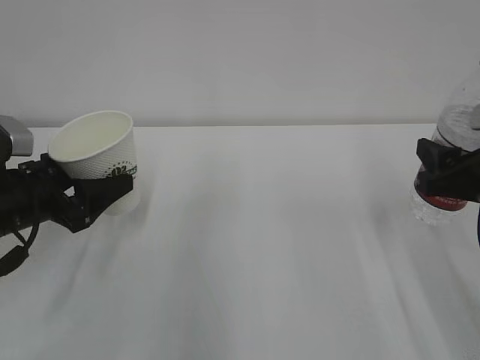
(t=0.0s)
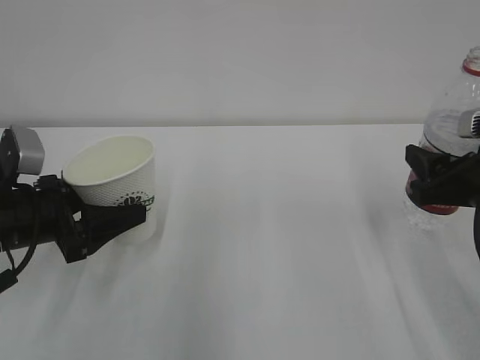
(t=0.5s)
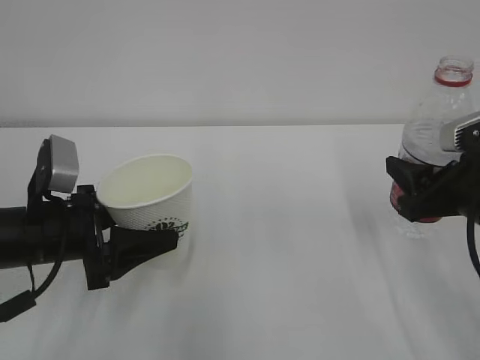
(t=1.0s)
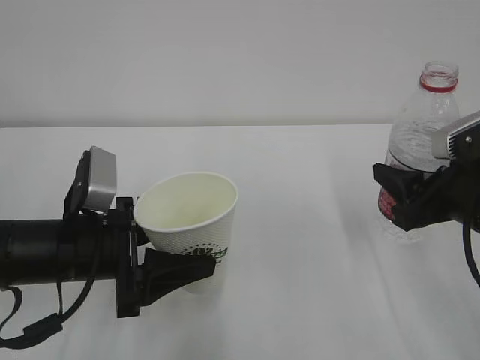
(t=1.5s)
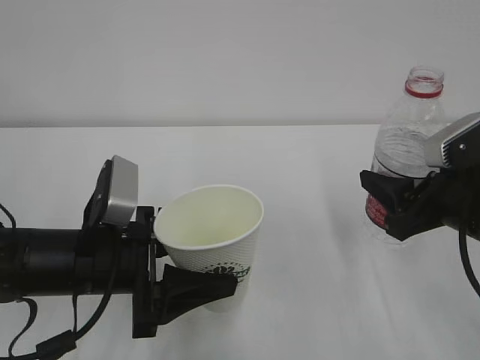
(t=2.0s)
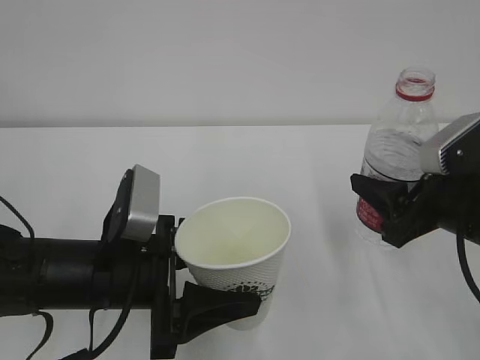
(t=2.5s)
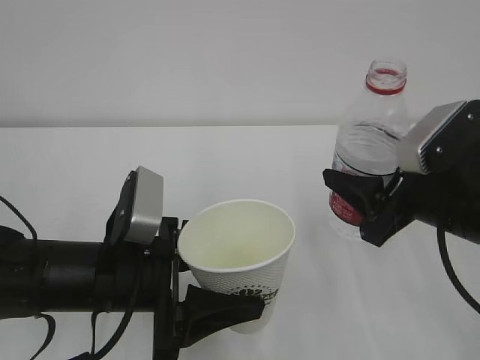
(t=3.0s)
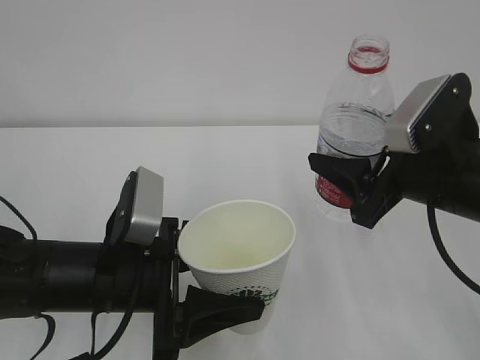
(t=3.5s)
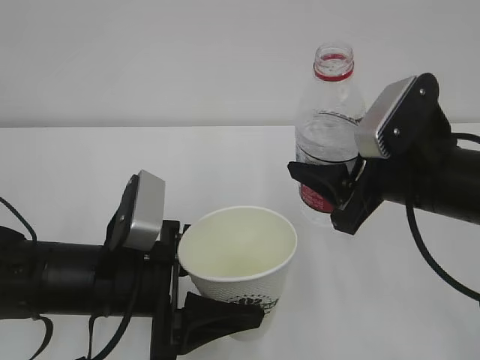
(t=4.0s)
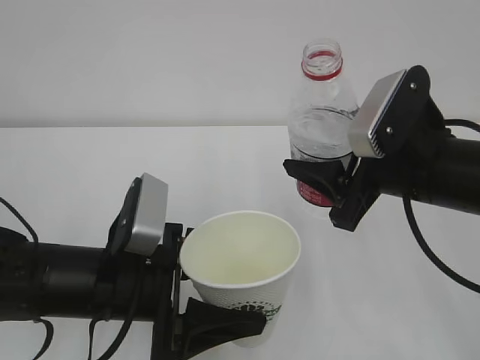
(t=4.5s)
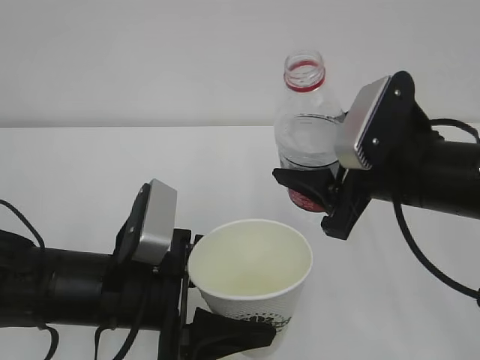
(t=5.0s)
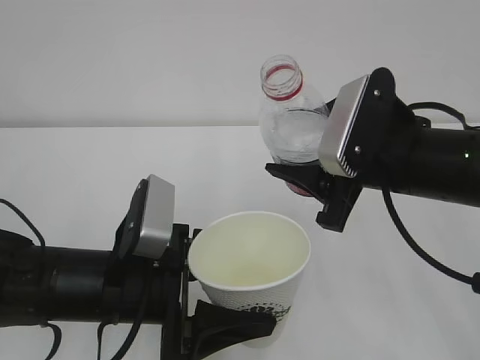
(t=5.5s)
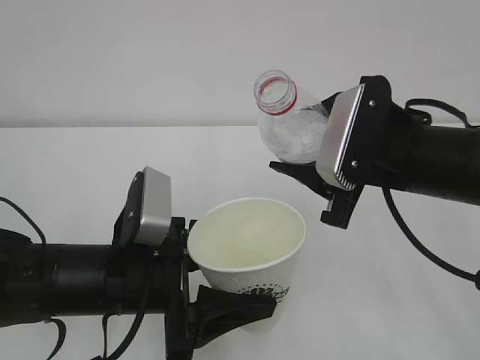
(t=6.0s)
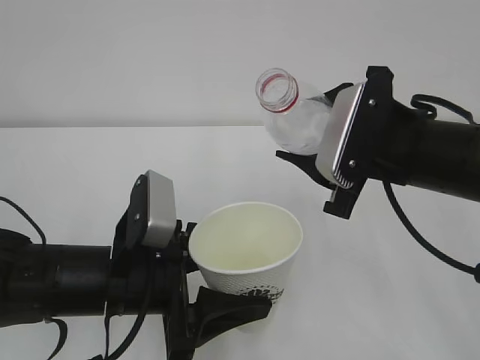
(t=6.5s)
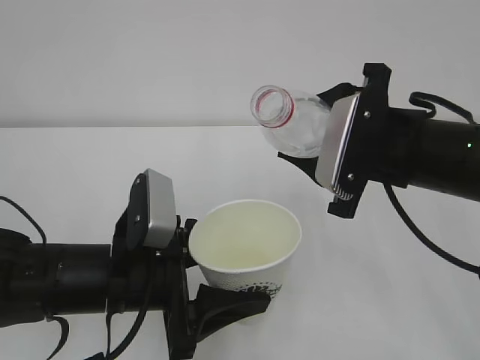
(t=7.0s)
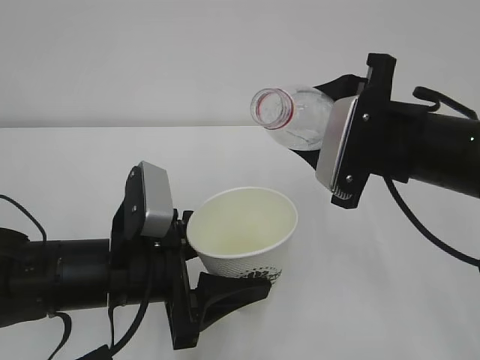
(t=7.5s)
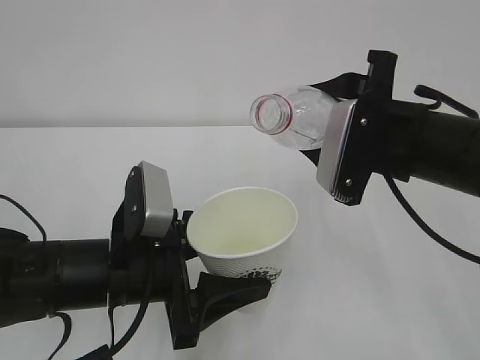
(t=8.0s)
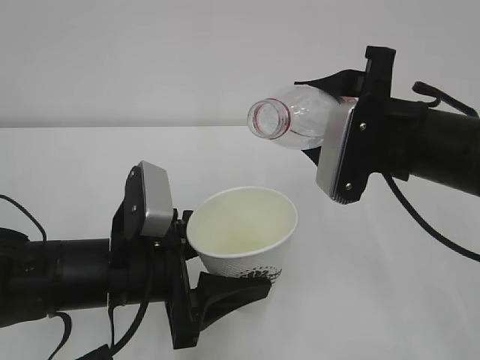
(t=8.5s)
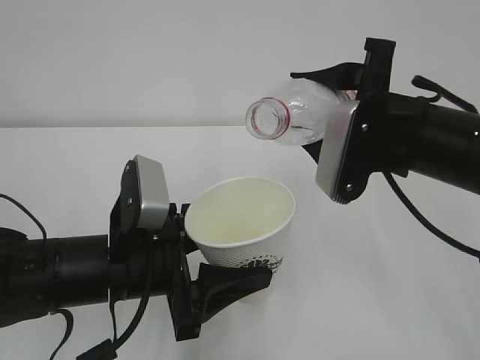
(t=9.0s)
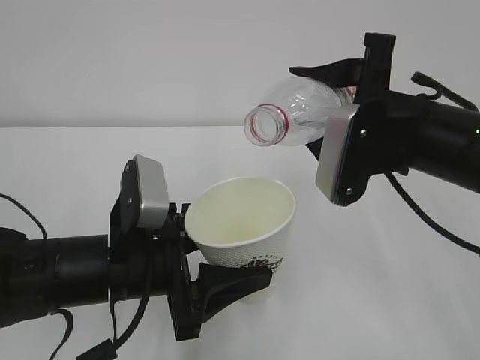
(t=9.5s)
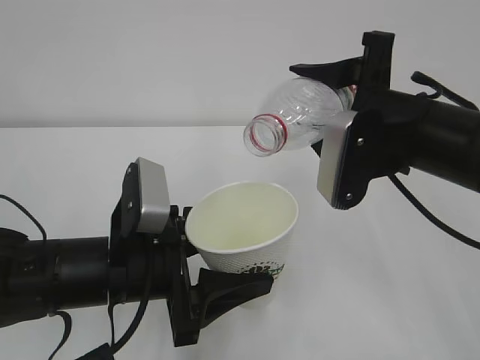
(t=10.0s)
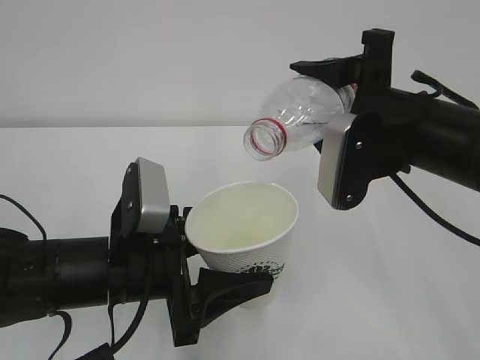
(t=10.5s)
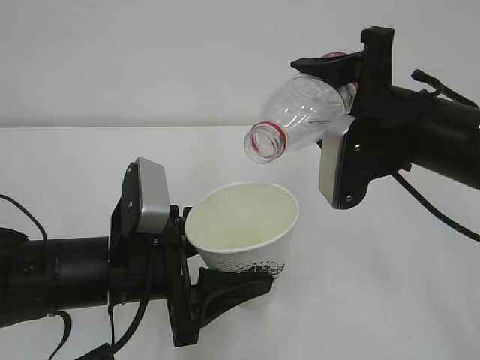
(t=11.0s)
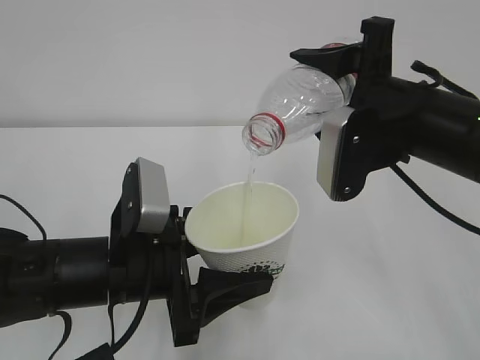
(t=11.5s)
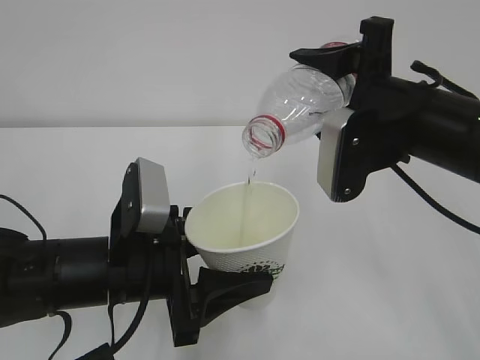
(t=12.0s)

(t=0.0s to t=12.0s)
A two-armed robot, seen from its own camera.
t=0.0s - t=2.0s: The left gripper is displaced to the right and backward by approximately 15 cm.
t=2.0s - t=4.0s: The right gripper travels to the left by about 5 cm.
t=8.0s - t=10.0s: The grippers make only small movements.
t=10.0s - t=12.0s: There are only small adjustments of the grippers.

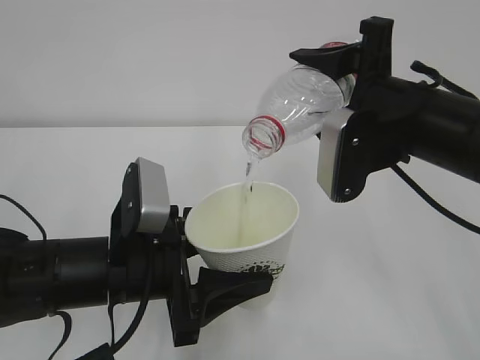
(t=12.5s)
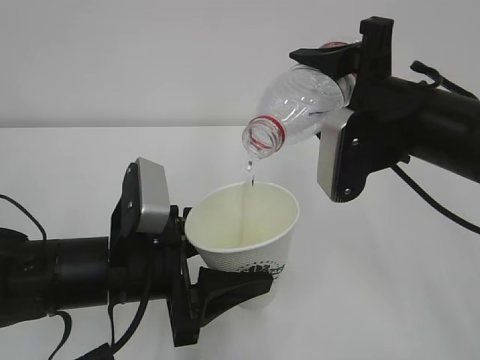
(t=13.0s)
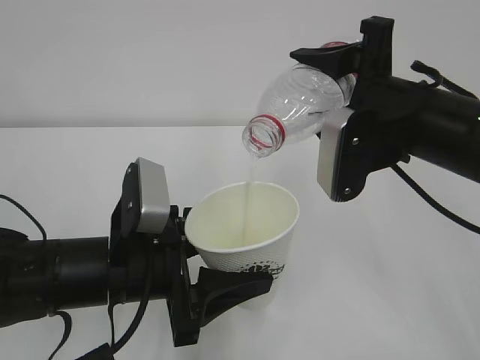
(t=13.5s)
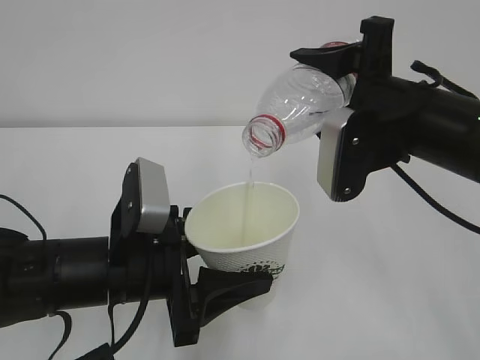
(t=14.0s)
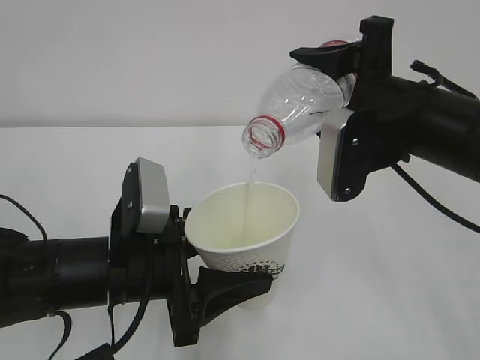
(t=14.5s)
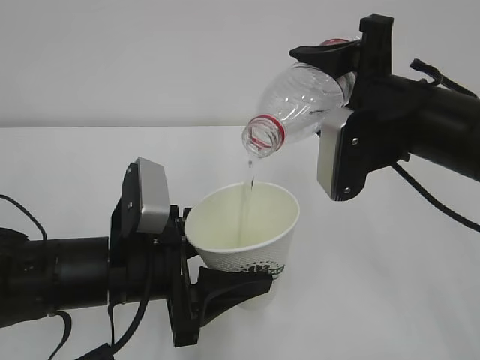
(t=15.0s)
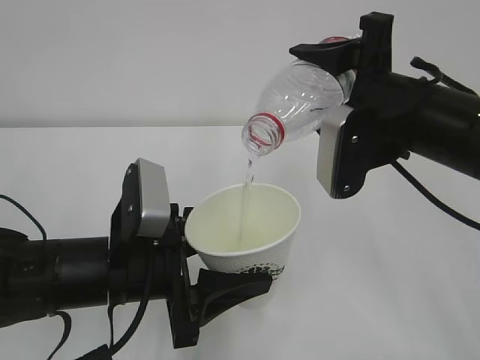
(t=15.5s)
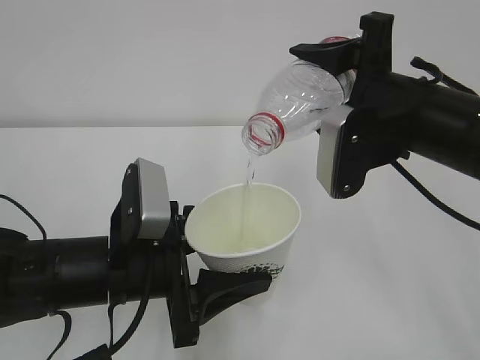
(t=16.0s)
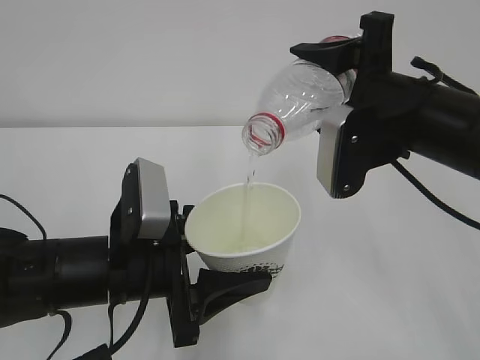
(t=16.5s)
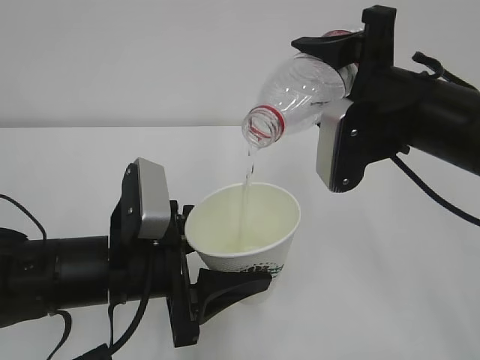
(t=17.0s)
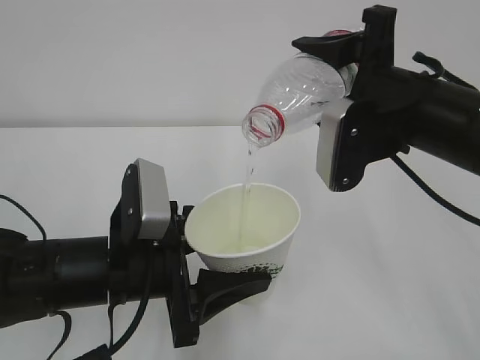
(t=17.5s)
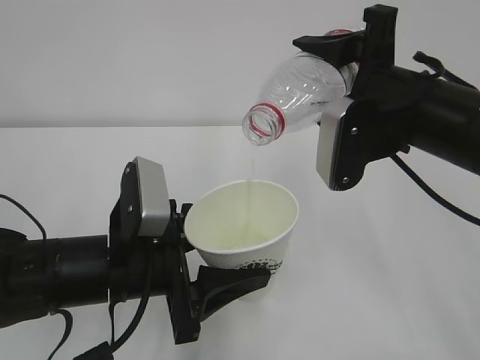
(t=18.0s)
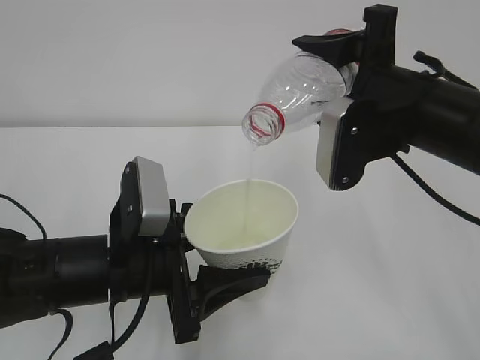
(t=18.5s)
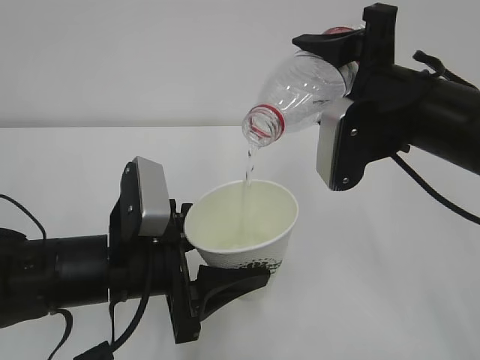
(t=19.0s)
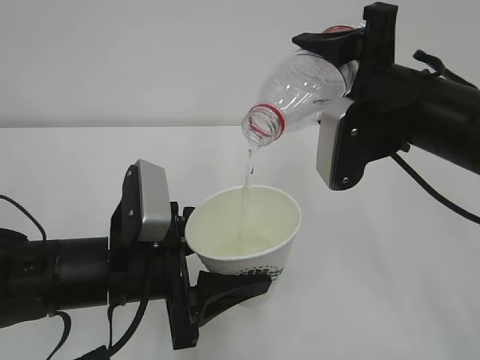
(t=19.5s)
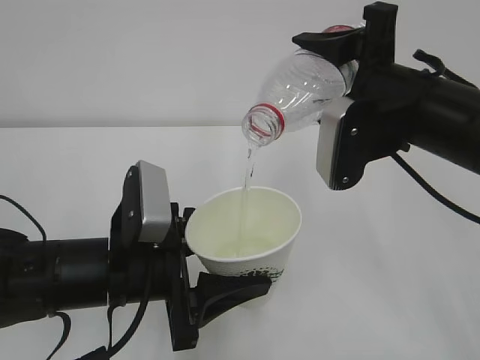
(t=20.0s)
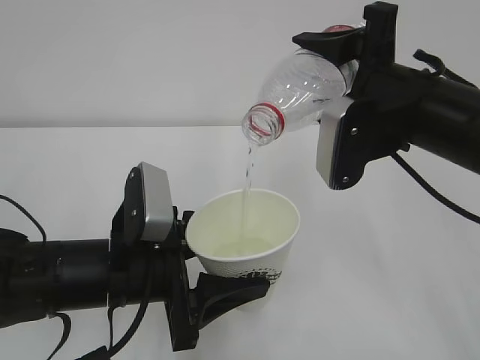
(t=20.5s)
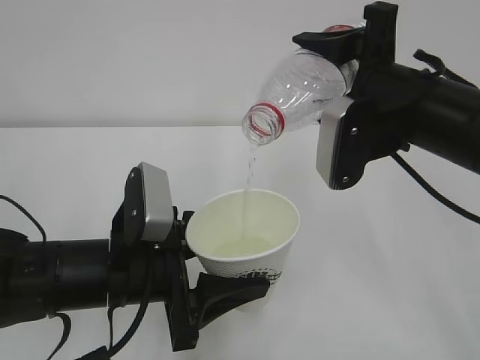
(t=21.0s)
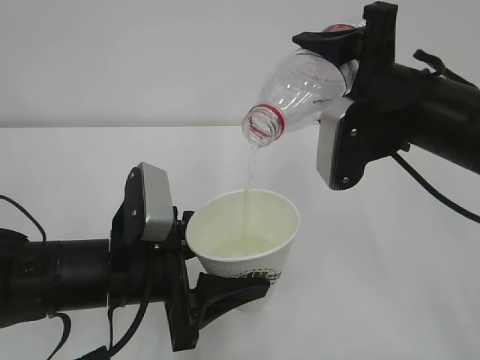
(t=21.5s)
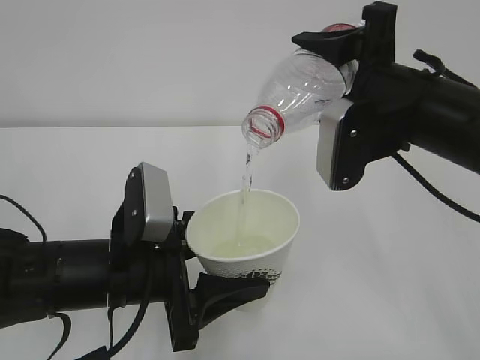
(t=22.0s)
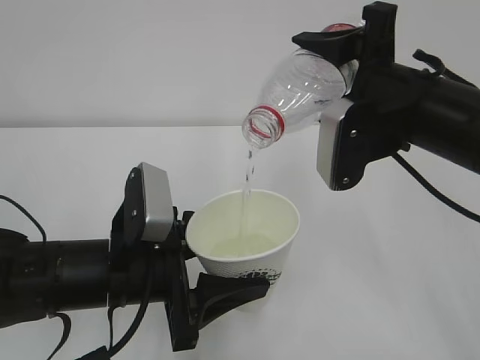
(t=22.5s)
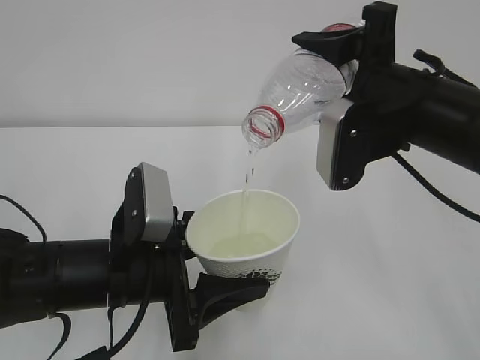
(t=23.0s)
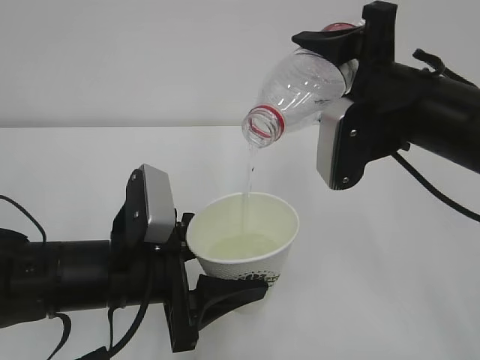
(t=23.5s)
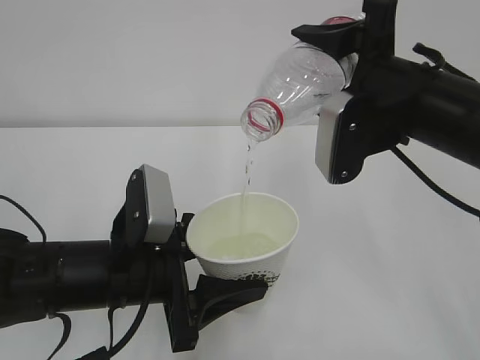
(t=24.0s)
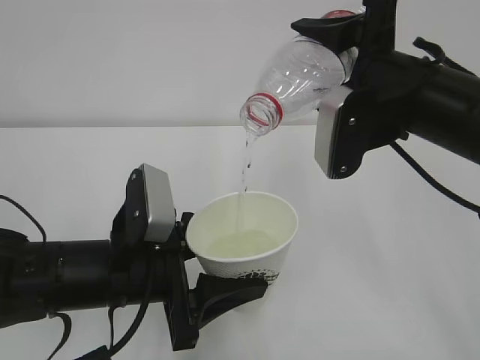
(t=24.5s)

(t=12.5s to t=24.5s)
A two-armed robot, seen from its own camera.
t=12.5s - t=18.5s: Neither gripper changes place.
t=18.5s - t=24.5s: Both grippers stay about where they are.

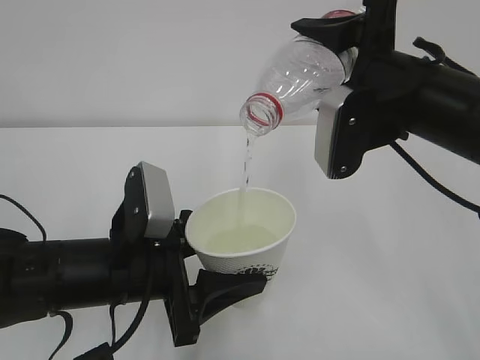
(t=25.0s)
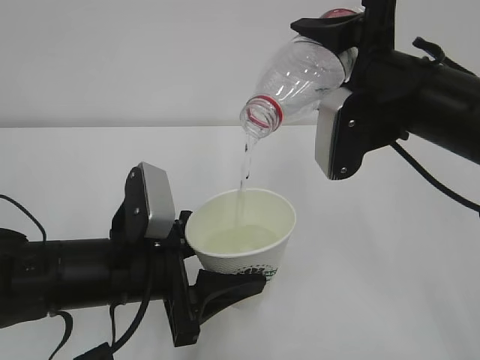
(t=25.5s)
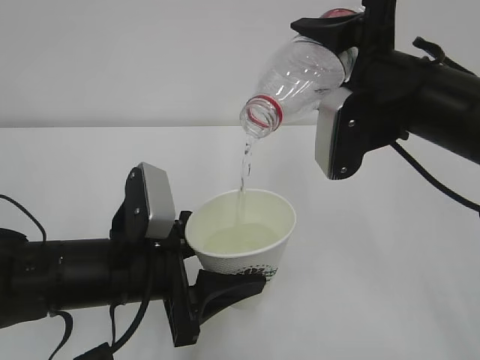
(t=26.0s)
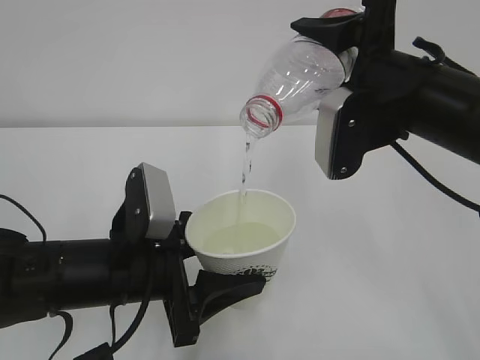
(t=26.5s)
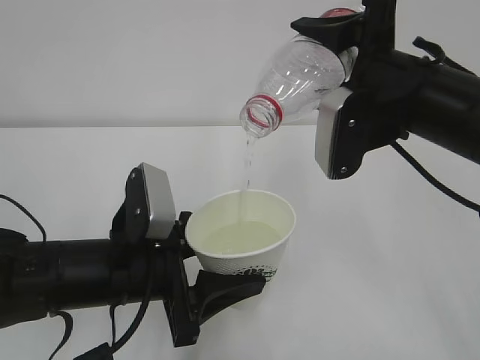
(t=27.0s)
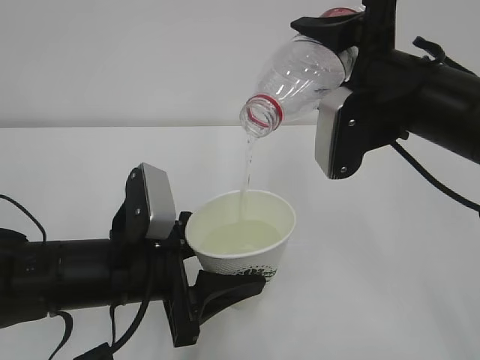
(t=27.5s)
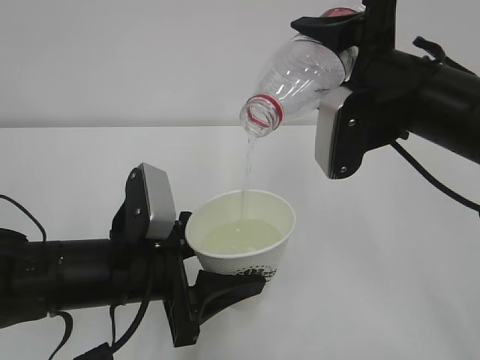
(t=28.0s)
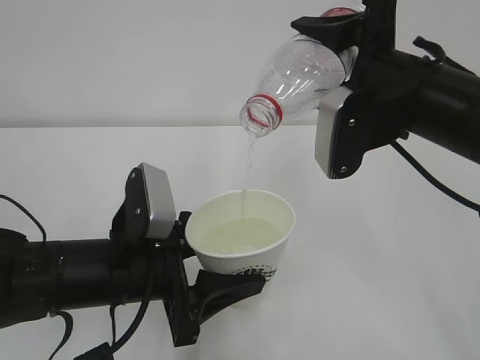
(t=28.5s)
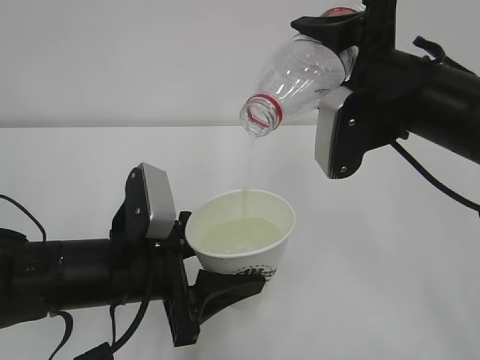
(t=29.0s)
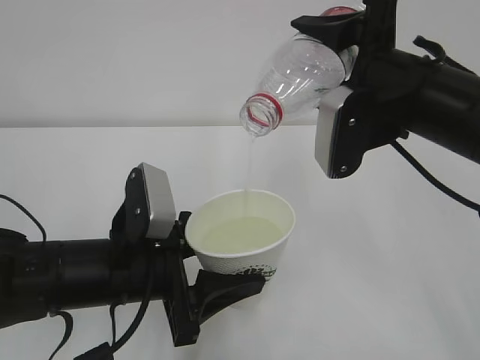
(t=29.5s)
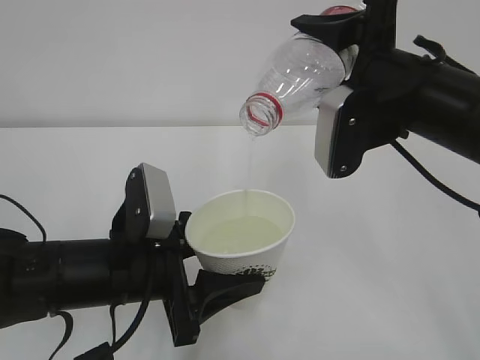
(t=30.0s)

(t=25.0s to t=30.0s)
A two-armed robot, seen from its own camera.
t=25.0s - t=30.0s: The two grippers keep their place.
